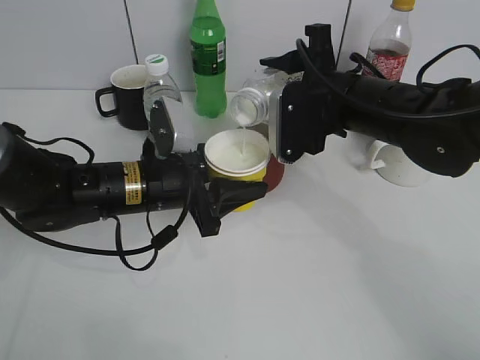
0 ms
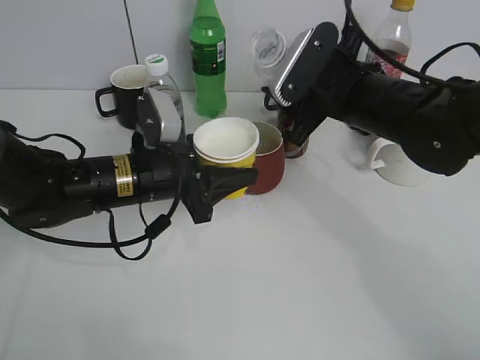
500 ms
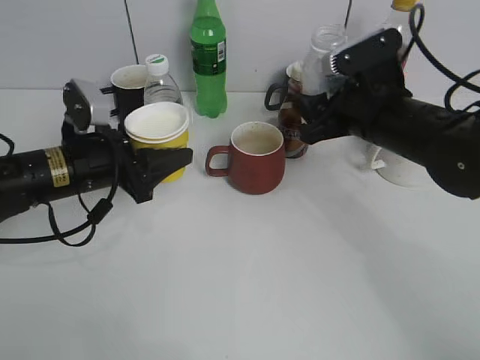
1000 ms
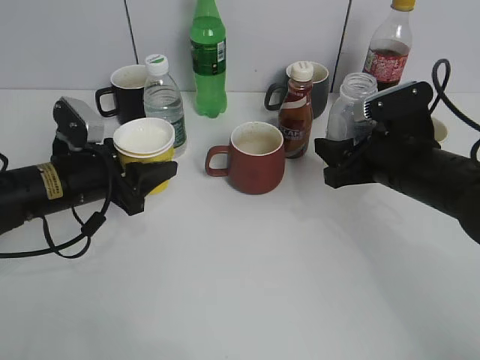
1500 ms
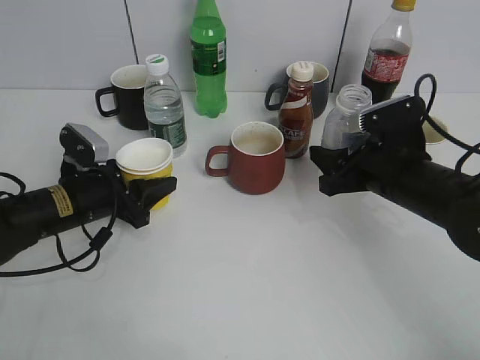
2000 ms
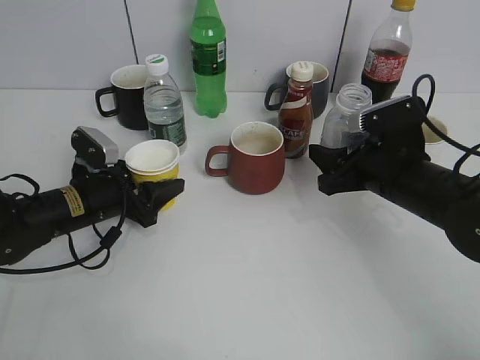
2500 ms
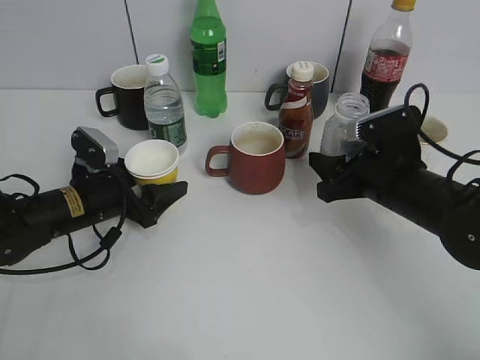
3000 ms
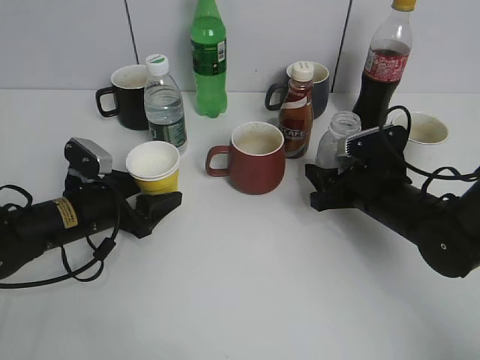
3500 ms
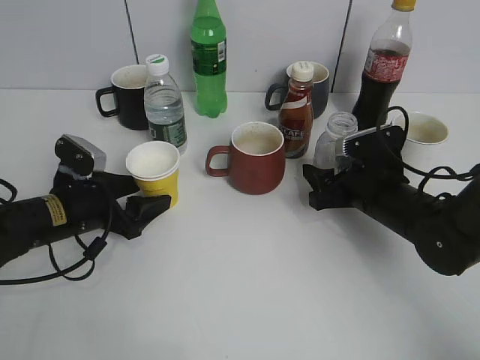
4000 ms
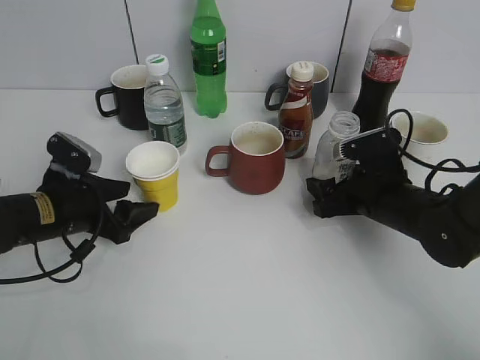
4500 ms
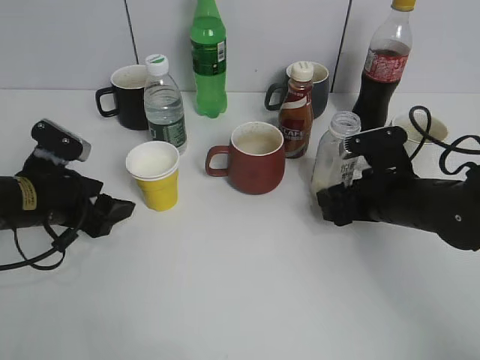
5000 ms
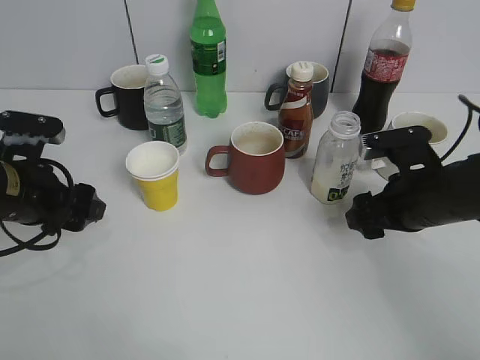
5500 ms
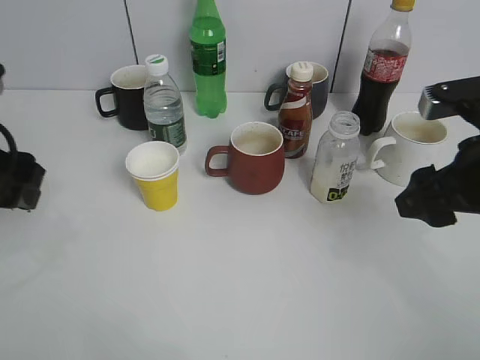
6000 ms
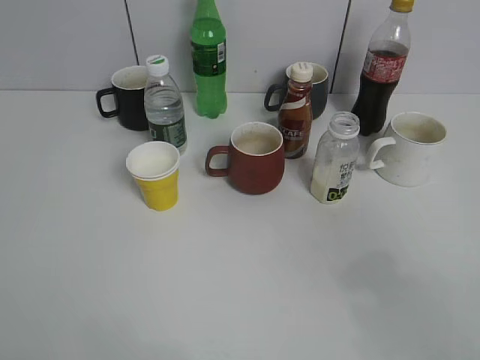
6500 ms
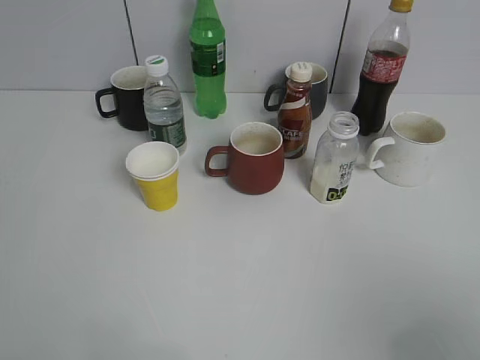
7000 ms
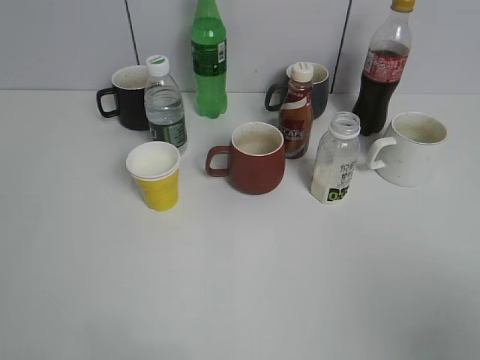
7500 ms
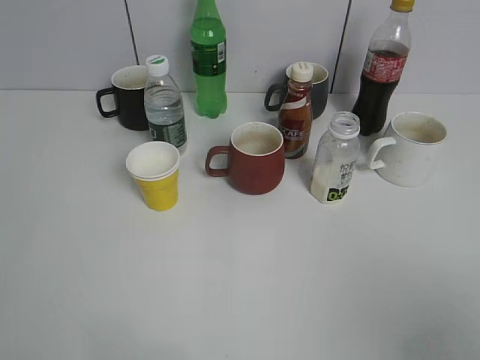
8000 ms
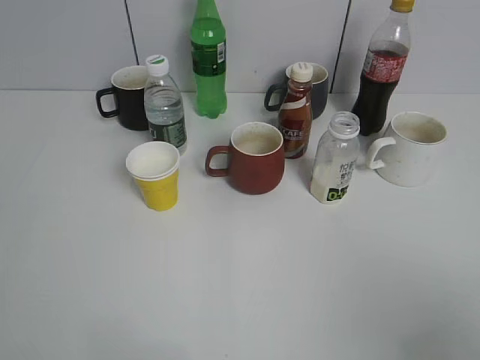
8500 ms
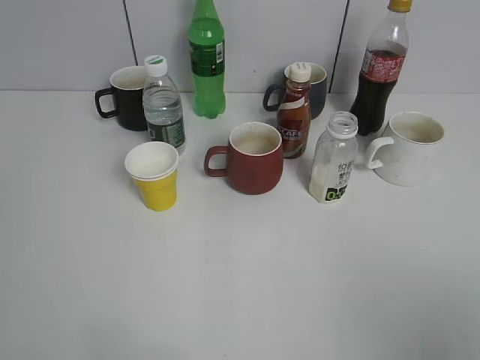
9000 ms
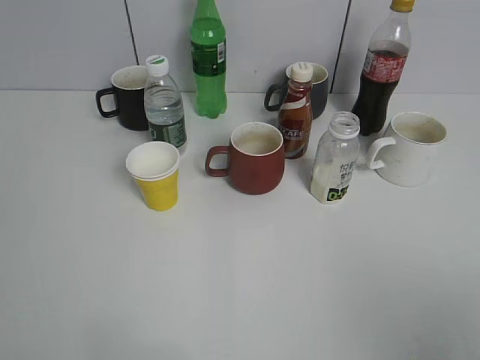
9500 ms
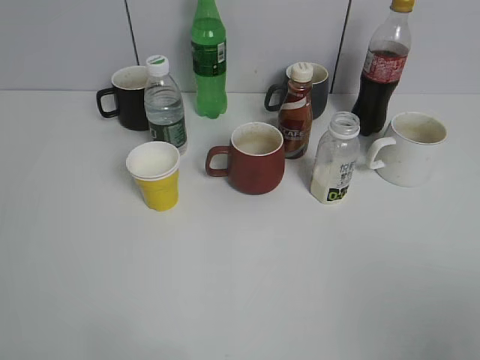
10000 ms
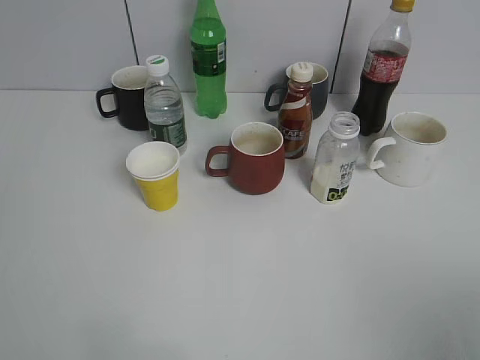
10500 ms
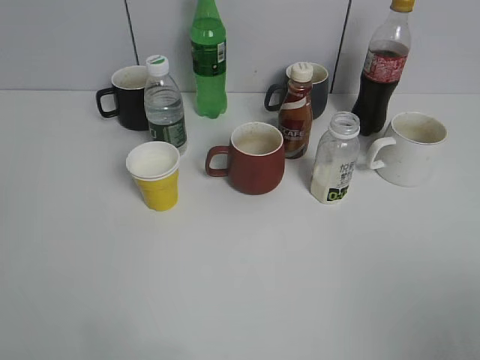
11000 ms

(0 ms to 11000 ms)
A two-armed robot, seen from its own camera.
Step, 500 ms - 4500 ms: Place the yuexian Milk bottle on the table with right gripper.
0 ms - 2000 ms: The right gripper shifts some 10 cm downward and to the right. The left gripper travels to the left by some 10 cm.
2000 ms - 3500 ms: The left gripper opens up. The right gripper goes some 5 cm downward.
3500 ms - 5500 ms: The left gripper heads upward, covering roughly 10 cm, while the right gripper shifts by approximately 5 cm, and opens its fingers.
5500 ms - 7500 ms: The two grippers go some 30 cm backward and upward.
9000 ms - 11000 ms: The grippers stay close to where they were, moving slightly.

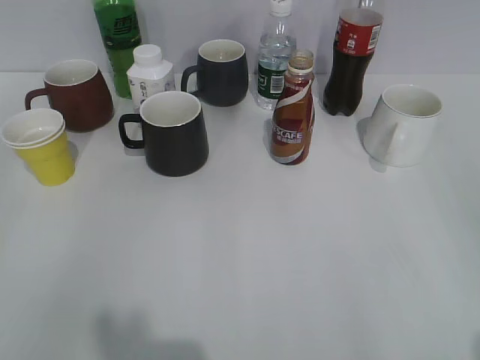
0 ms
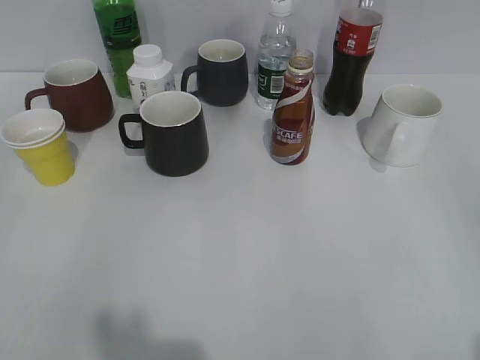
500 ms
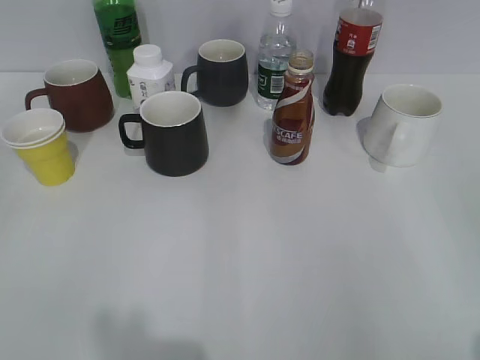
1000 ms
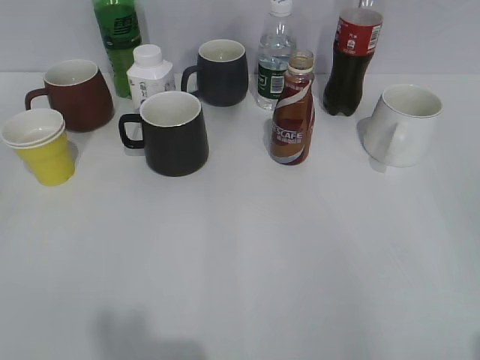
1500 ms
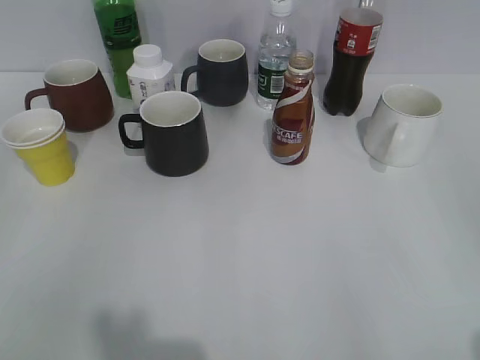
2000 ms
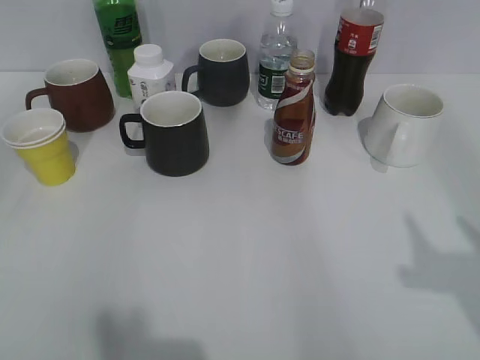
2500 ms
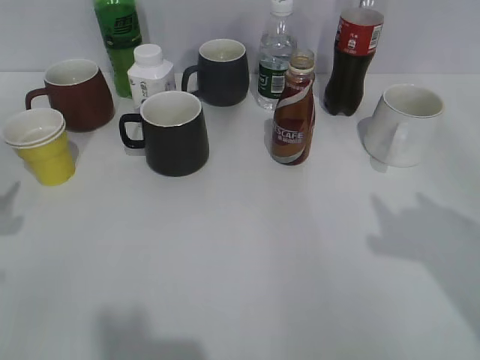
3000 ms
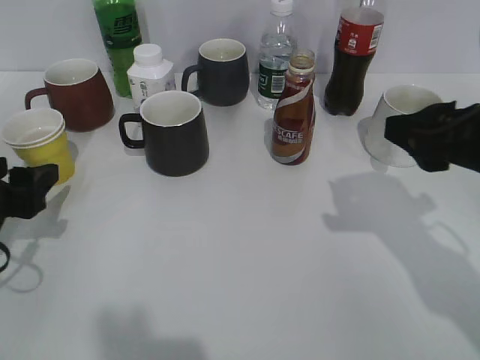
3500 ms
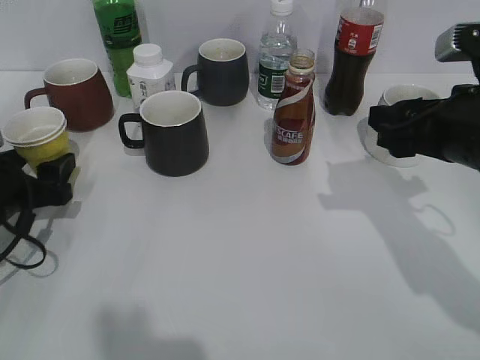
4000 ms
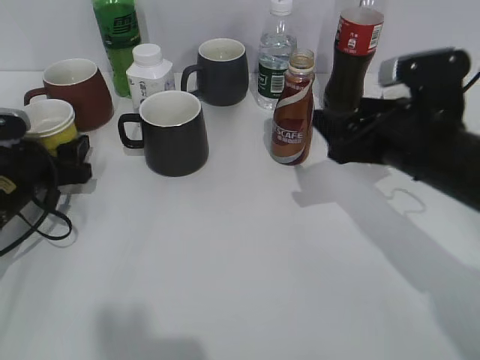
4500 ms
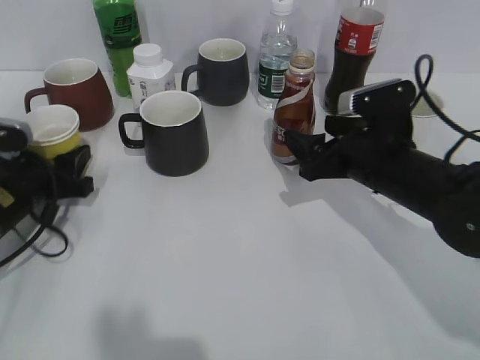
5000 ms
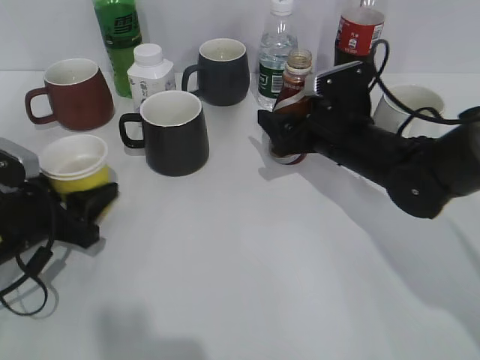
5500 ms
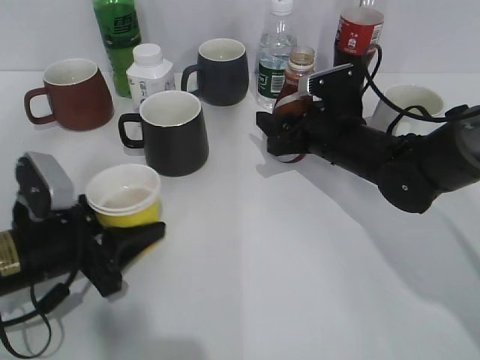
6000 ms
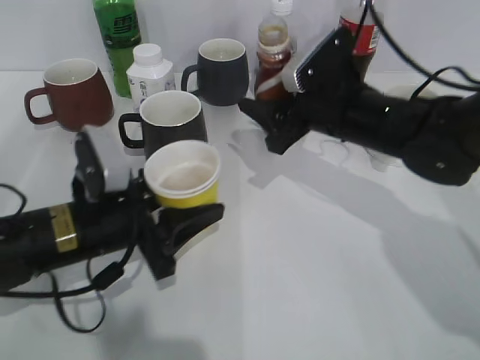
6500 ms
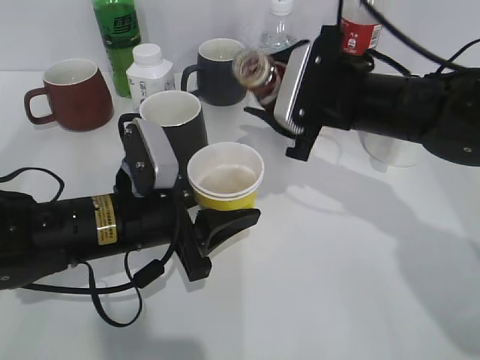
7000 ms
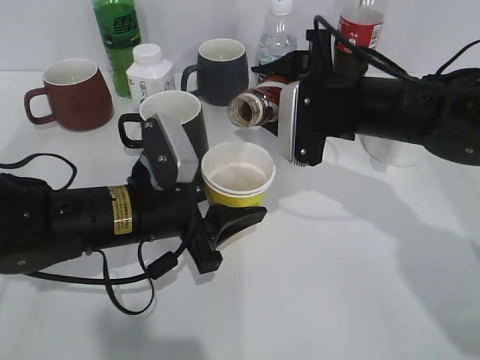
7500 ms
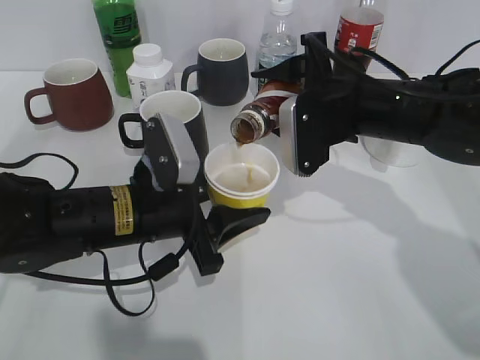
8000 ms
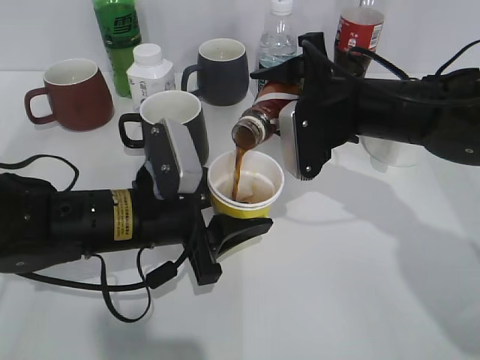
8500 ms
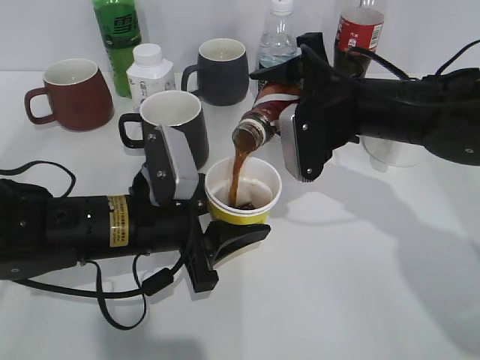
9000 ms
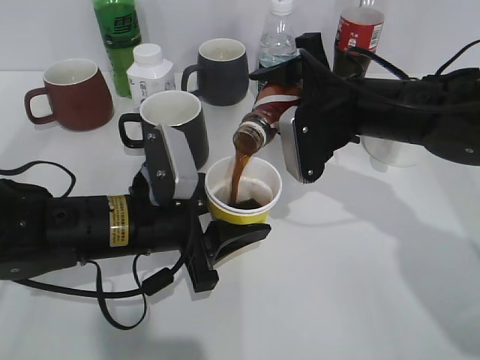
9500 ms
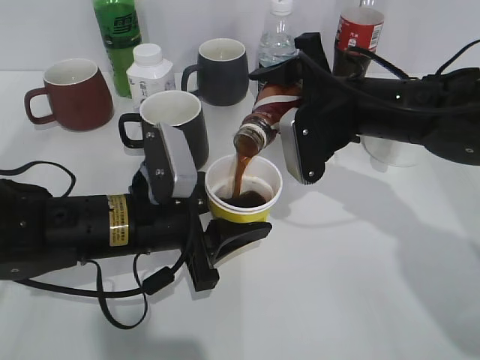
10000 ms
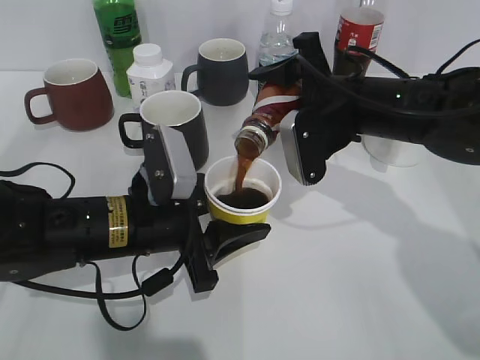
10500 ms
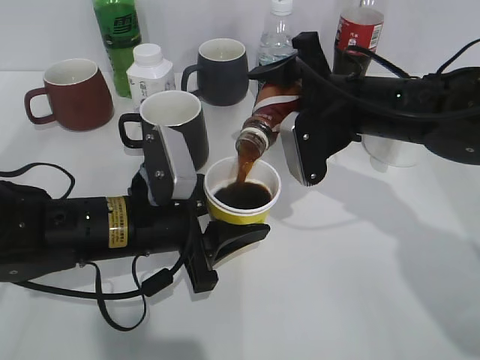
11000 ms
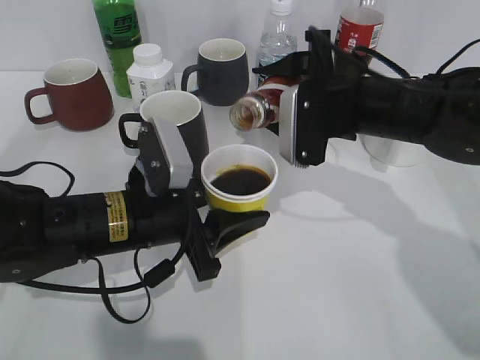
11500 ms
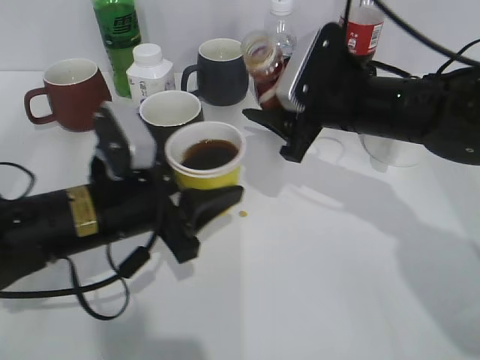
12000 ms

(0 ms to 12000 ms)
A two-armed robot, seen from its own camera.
Step, 2000 ms - 4500 ms: Grasp the yellow paper cup with left gripper.
Step, 5000 ms - 5500 ms: Grasp the bottle with coffee with right gripper.
Step, 6500 ms - 11500 ms: Pour the coffee from bottle to cup with right gripper.
2000 ms - 4000 ms: The right gripper goes some 25 cm forward. The left gripper goes roughly 30 cm forward and downward, and opens up.
4000 ms - 6000 ms: The left gripper heads to the right, covering approximately 5 cm, and closes its fingers. The right gripper heads forward, downward and to the left, covering some 20 cm, and opens and closes again.
6000 ms - 8000 ms: The left gripper travels to the right by about 10 cm; the right gripper shifts roughly 10 cm upward.
8000 ms - 10000 ms: The grippers stay close to where they were, moving slightly.

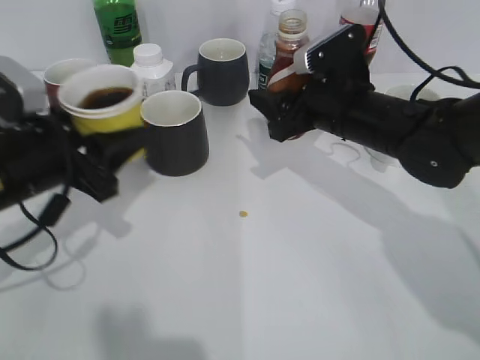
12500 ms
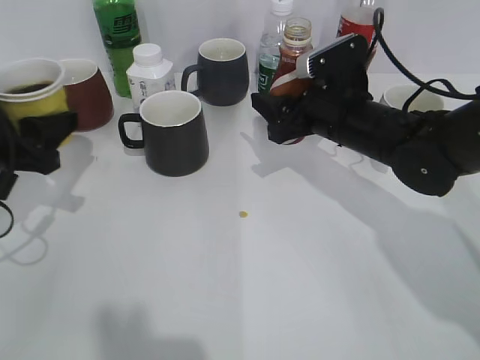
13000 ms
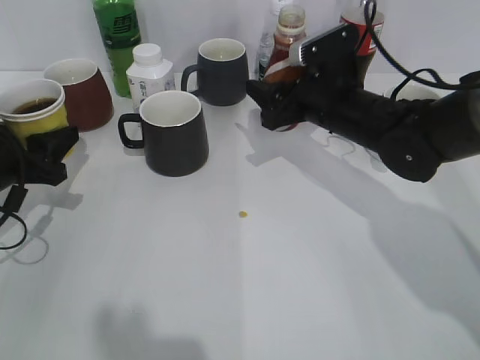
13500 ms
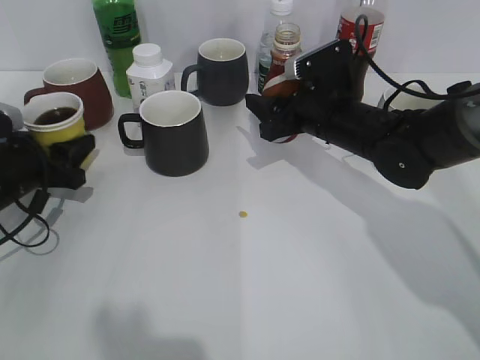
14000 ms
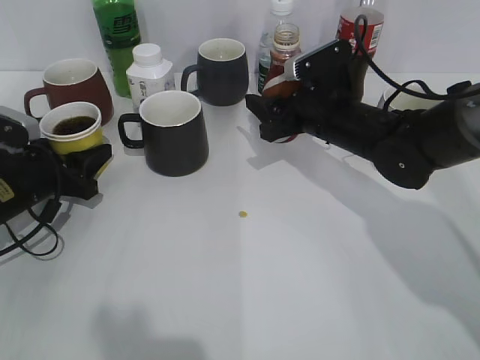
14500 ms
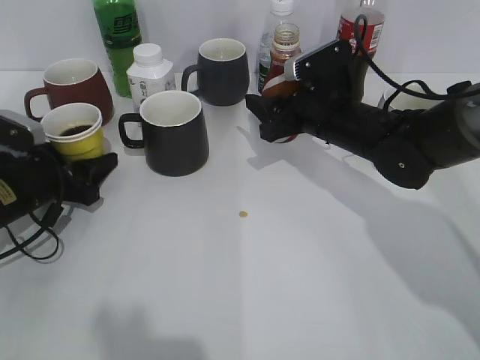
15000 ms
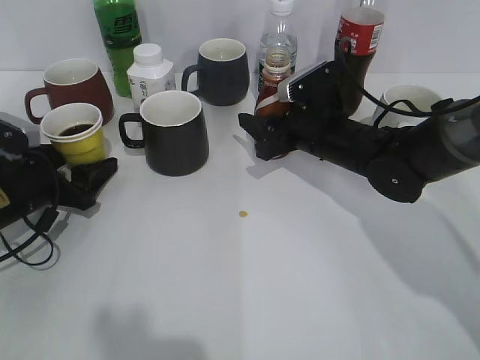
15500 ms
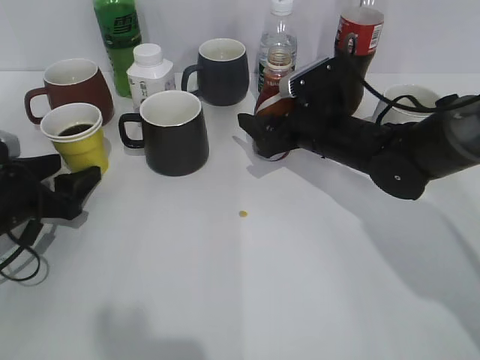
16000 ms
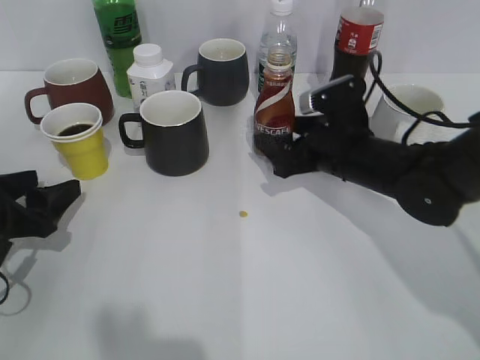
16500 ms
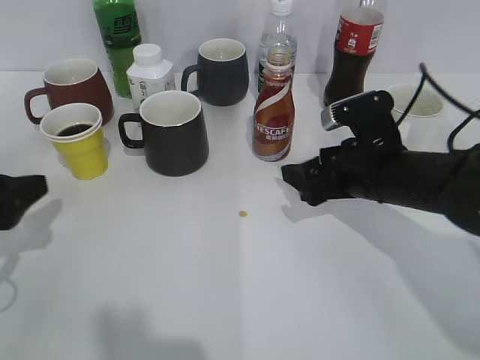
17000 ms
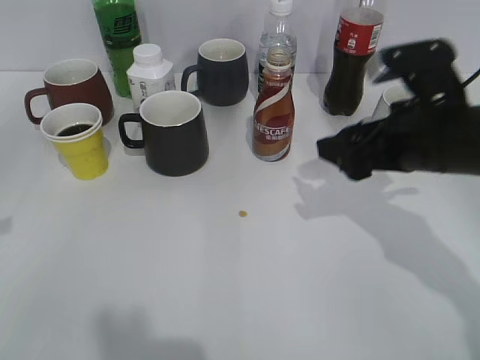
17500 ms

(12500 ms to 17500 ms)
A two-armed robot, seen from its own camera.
Step, 12500 ms - 15000 ms: Place the yellow paper cup on the table with left gripper.
Step, 15500 ms - 16500 ms: Place the coffee bottle on the table with right gripper.
12500 ms - 15000 ms: The left gripper goes roughly 15 cm downward, forward and to the left.
15000 ms - 17500 ms: The left gripper is displaced upward and backward by approximately 20 cm; the right gripper travels backward, upward and to the right by some 15 cm, and opens up.
